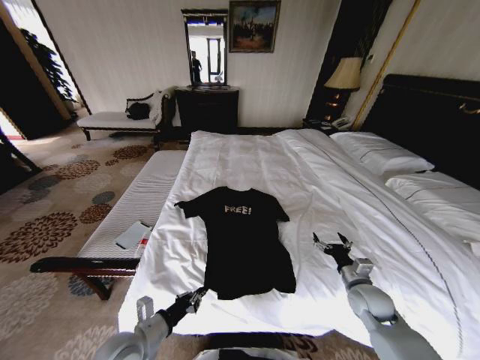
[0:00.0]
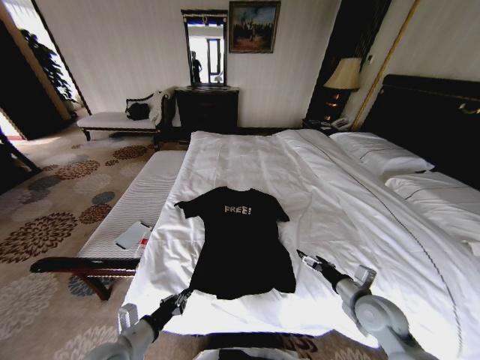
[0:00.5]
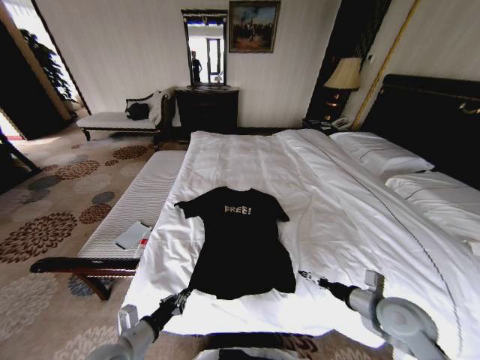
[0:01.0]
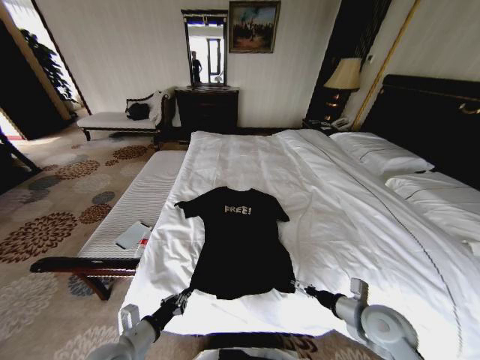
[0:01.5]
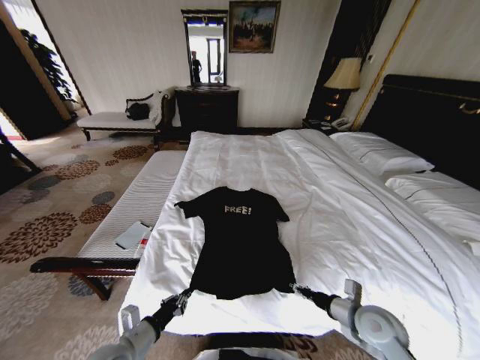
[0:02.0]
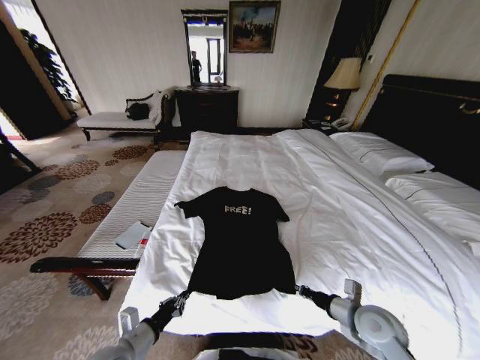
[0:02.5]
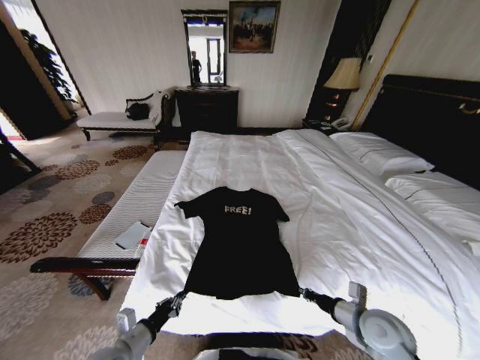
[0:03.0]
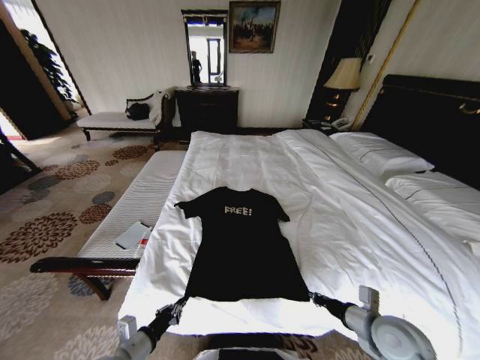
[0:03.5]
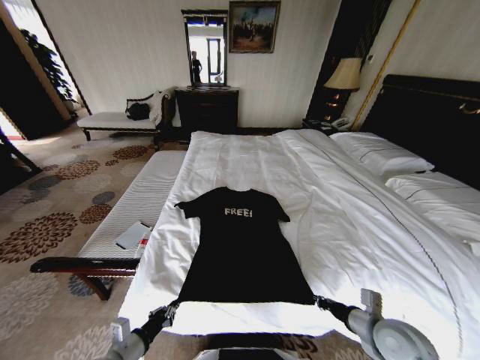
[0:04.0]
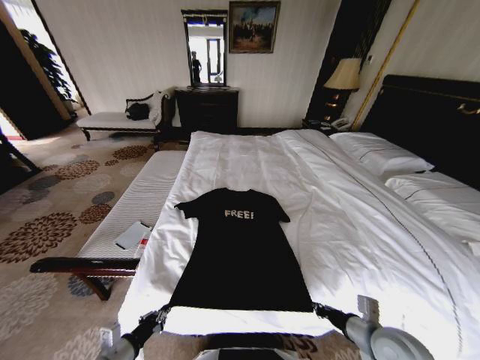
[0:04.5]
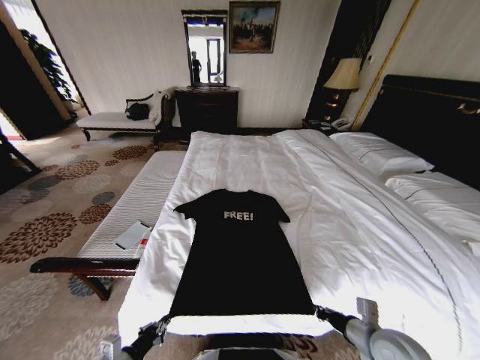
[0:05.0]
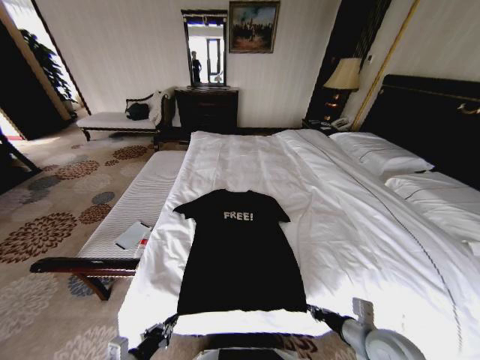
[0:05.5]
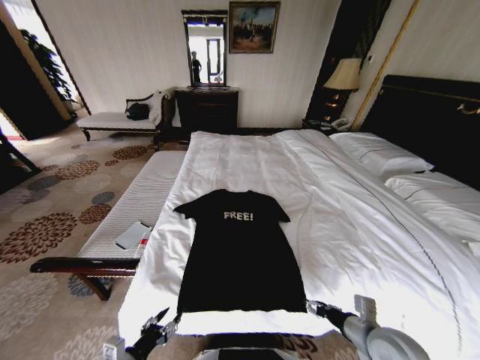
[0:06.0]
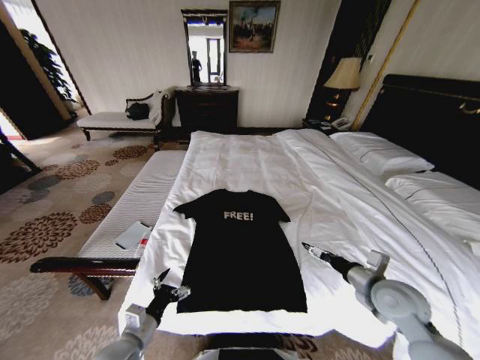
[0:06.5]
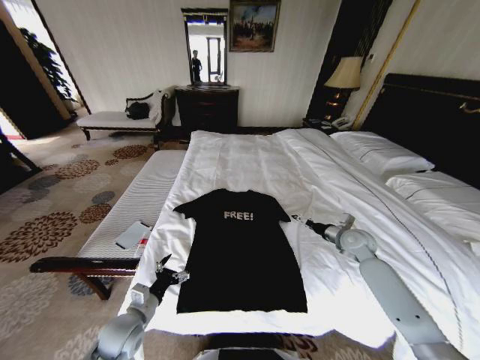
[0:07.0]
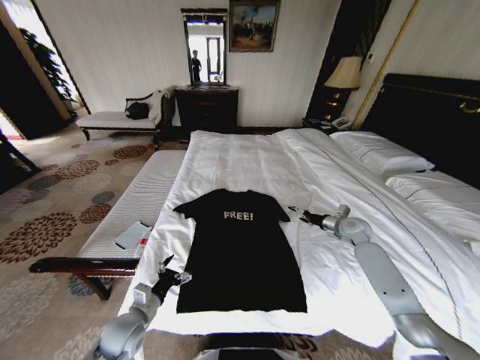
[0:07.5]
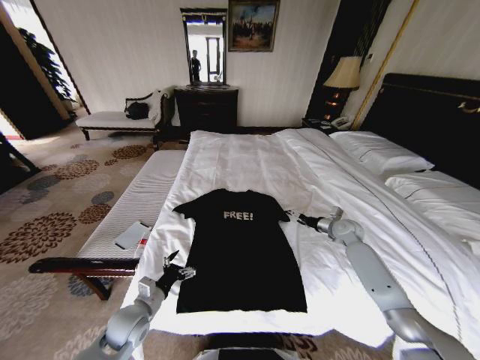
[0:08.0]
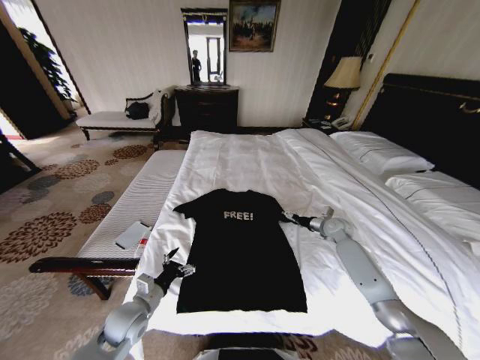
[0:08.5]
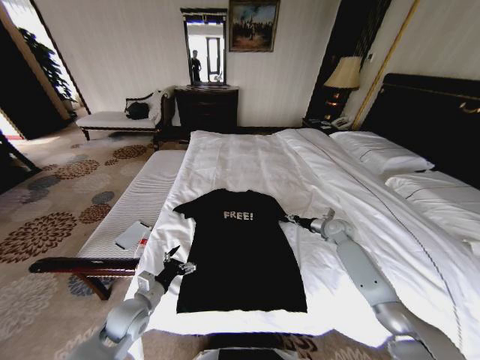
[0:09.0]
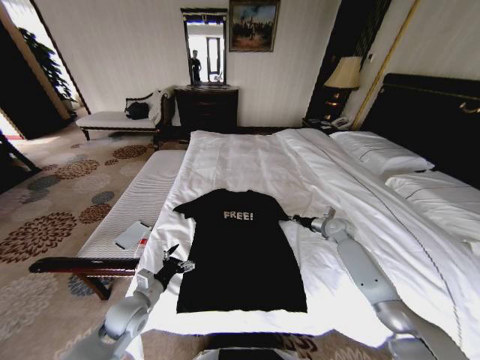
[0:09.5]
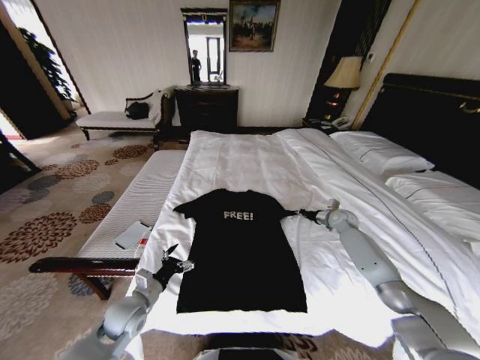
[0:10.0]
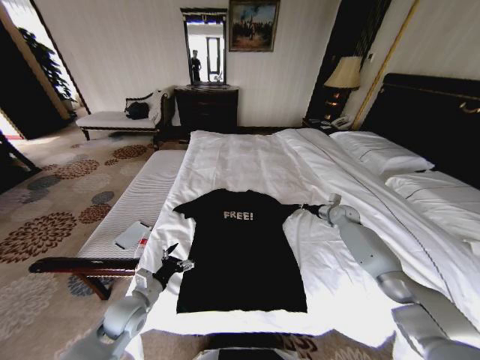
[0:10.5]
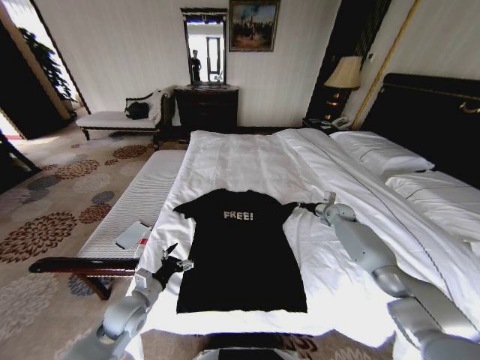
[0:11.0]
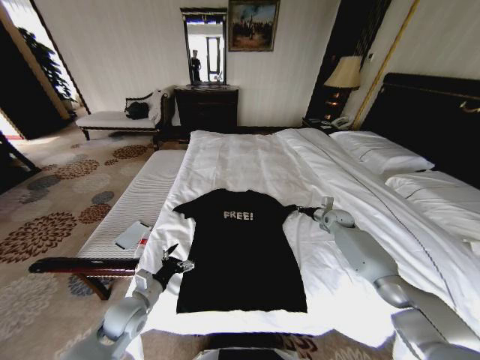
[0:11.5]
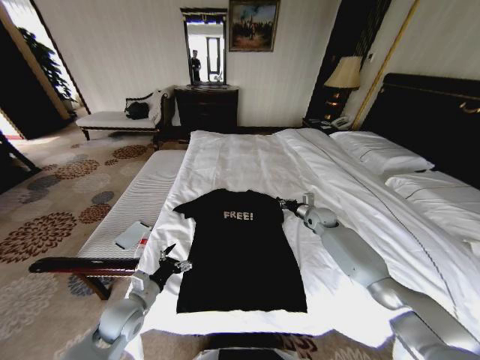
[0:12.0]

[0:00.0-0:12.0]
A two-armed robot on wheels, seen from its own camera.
Task of the whole recording: Fold the clothes on the bed.
0:00.0 to 0:02.0: The right gripper is displaced backward by about 5 cm, and closes up.
0:02.0 to 0:04.0: The right gripper closes.
0:04.0 to 0:06.0: The right gripper opens its fingers. The left gripper opens.
0:06.0 to 0:08.0: The right gripper travels forward by about 30 cm, and opens up, while the left gripper is displaced forward by roughly 15 cm, and opens its fingers.
0:08.0 to 0:10.0: The right gripper shifts some 5 cm forward, and closes.
0:10.0 to 0:12.0: The right gripper travels to the left by approximately 10 cm.

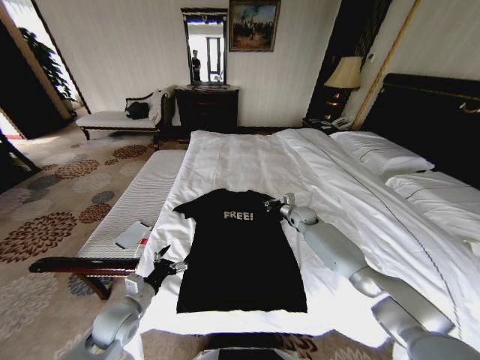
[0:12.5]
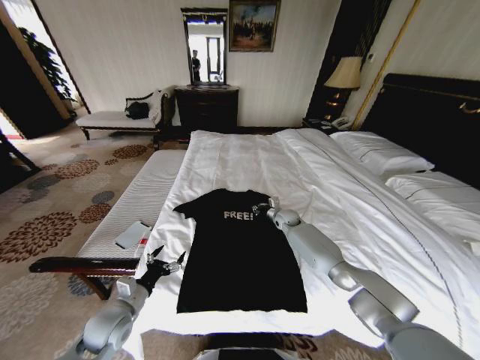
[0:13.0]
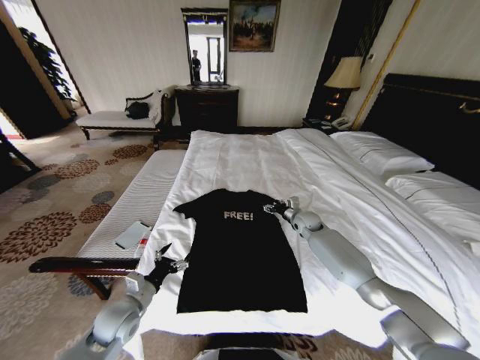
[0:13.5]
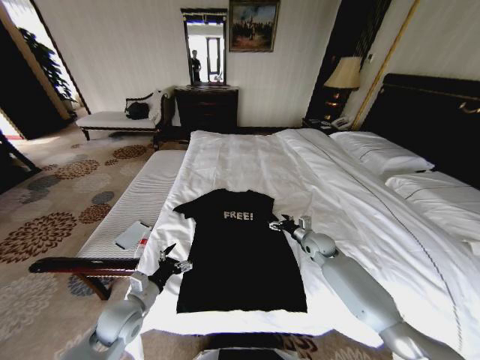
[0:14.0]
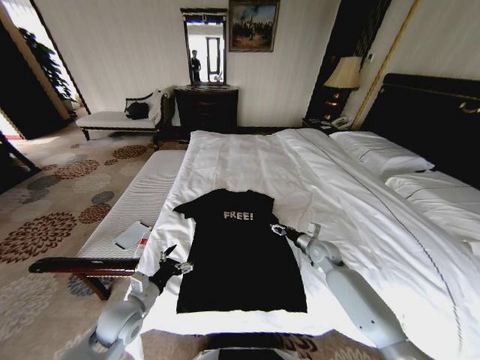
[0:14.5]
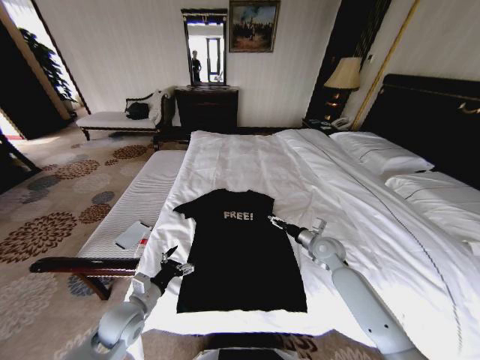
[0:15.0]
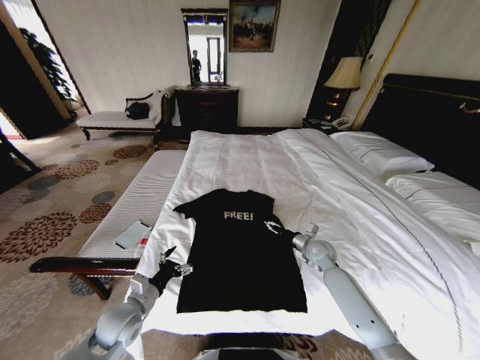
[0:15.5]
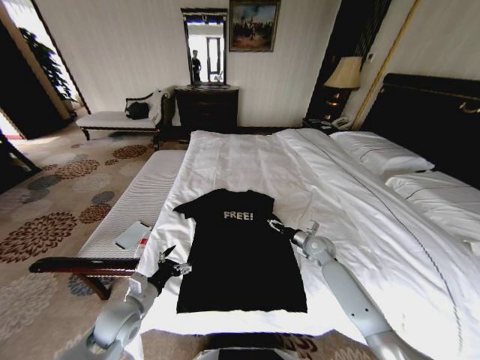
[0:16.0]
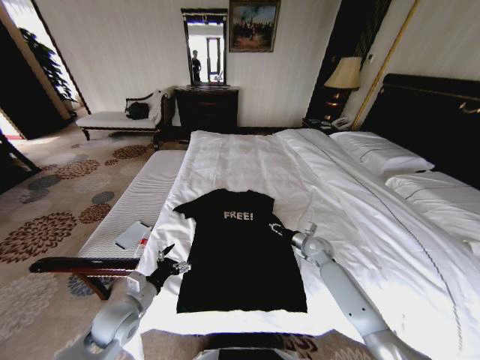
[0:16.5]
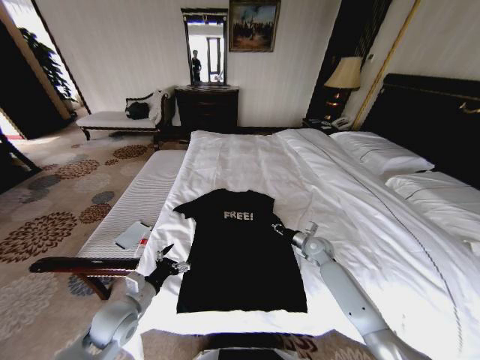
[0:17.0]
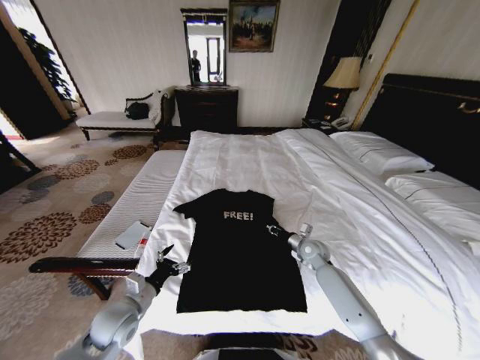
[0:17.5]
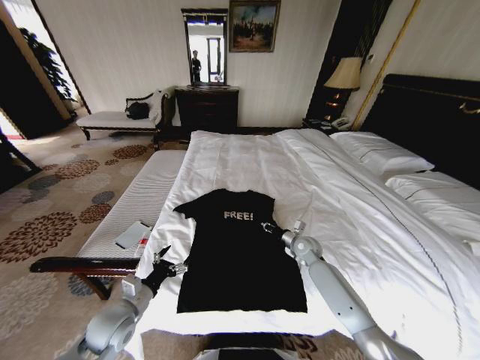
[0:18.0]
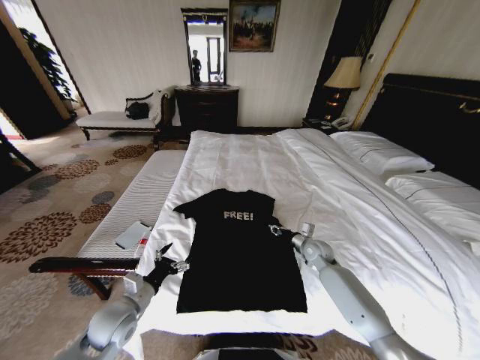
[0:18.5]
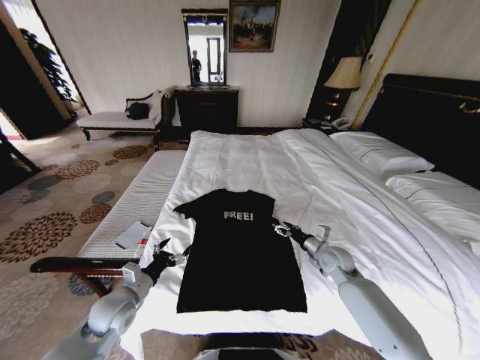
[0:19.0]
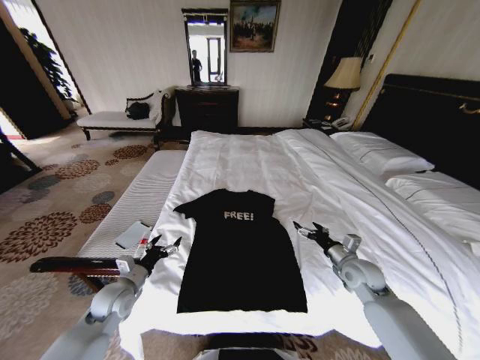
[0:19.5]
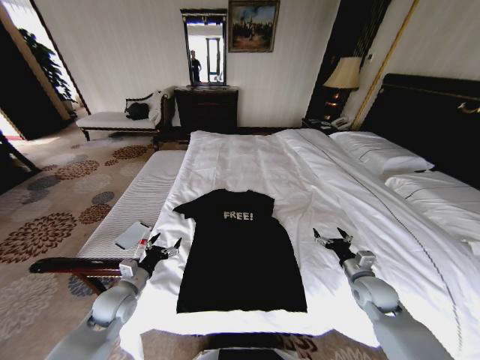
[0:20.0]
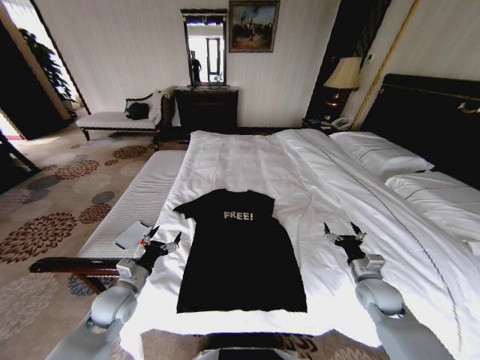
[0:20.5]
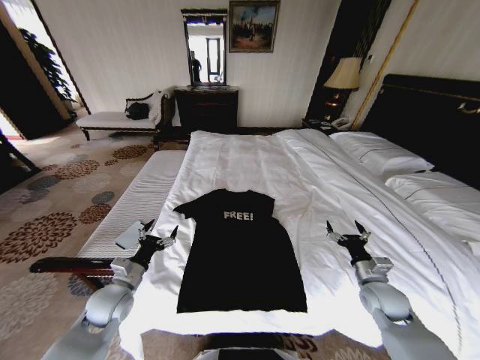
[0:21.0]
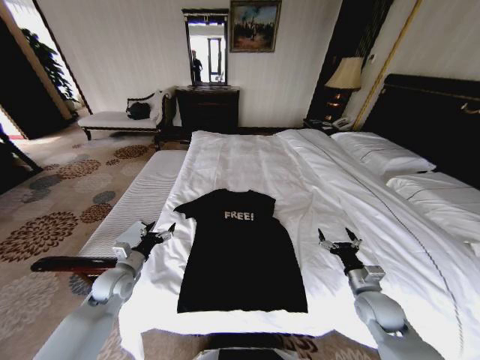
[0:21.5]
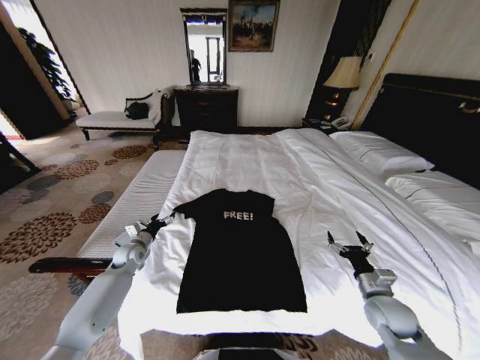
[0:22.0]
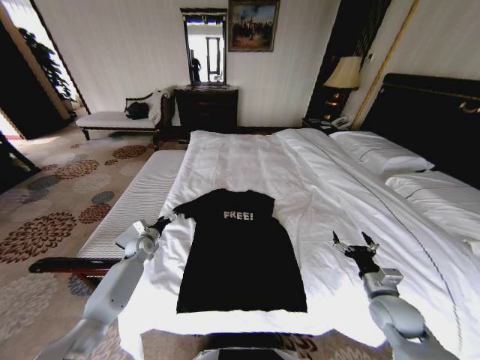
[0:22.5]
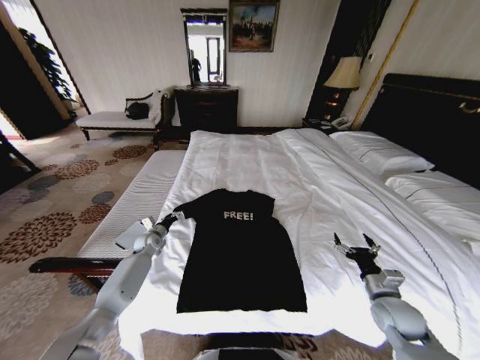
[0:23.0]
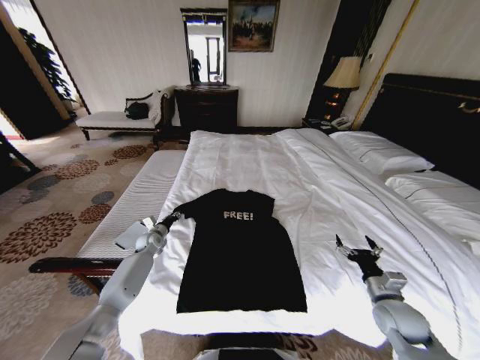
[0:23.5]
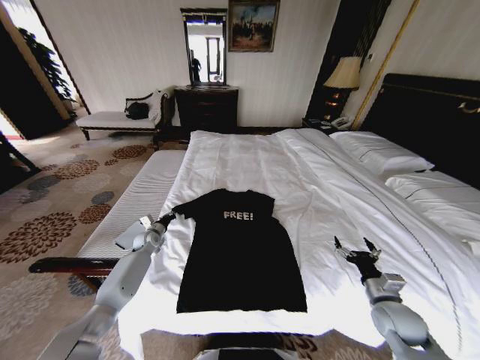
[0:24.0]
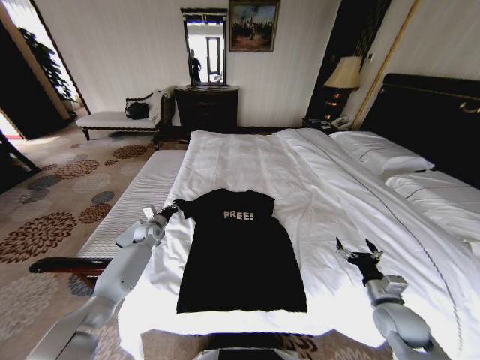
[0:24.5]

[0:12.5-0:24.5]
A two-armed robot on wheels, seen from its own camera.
Task of the whole recording: Fold the clothes on the bed.
0:12.5 to 0:14.5: The right gripper travels backward by roughly 15 cm, and opens.
0:14.5 to 0:16.5: The right gripper closes up.
0:16.5 to 0:18.5: There are only small adjustments of the grippers.
0:18.5 to 0:20.5: The left gripper changes place by some 5 cm; the right gripper heads backward and to the right, covering approximately 20 cm, and opens its fingers.
0:20.5 to 0:22.5: The right gripper shifts by some 5 cm. The left gripper shifts roughly 20 cm forward.
0:22.5 to 0:24.5: The left gripper ends up approximately 5 cm from where it was, and closes.

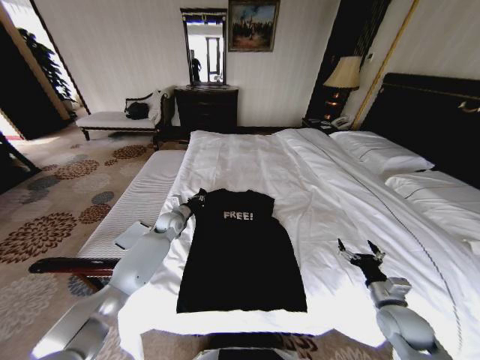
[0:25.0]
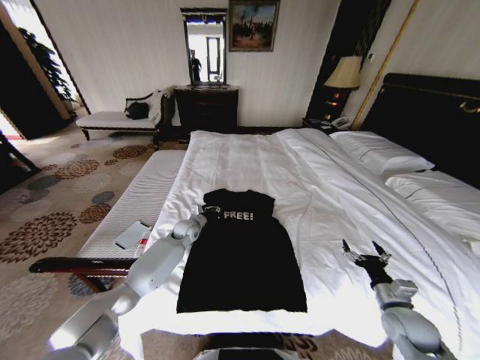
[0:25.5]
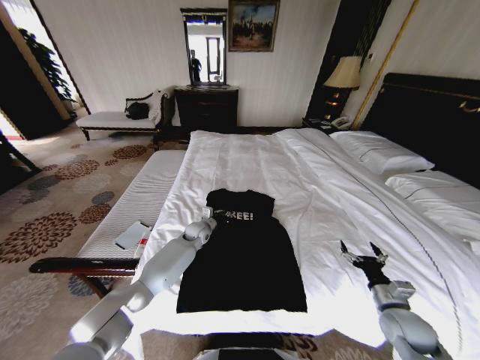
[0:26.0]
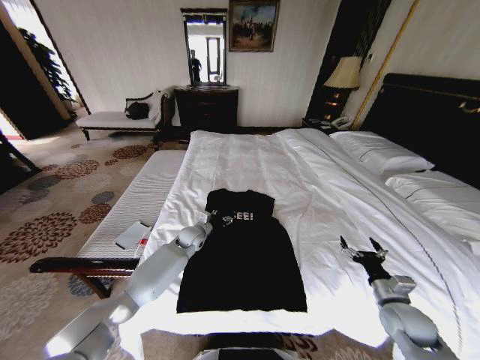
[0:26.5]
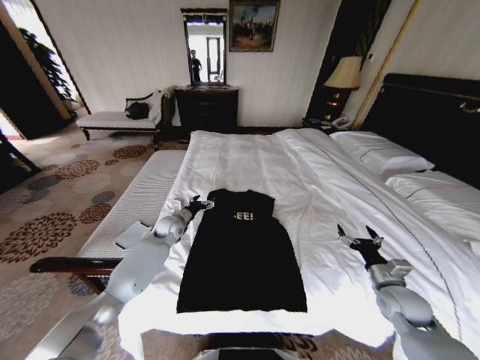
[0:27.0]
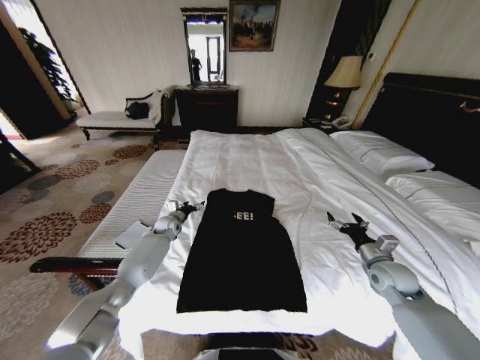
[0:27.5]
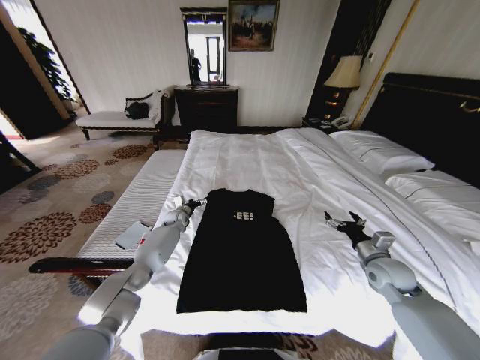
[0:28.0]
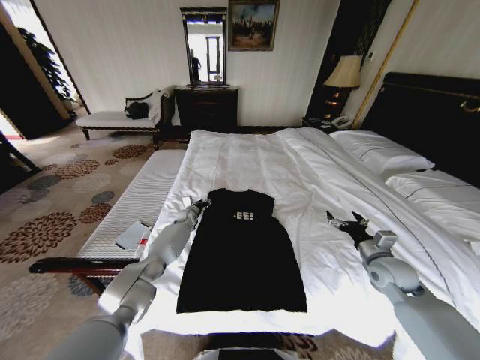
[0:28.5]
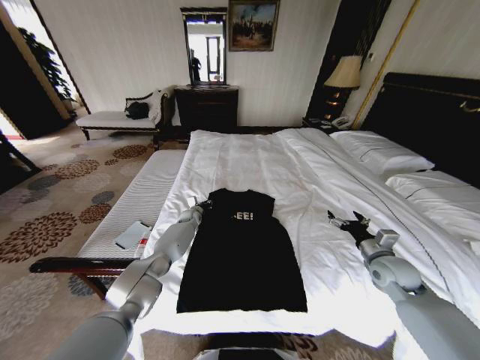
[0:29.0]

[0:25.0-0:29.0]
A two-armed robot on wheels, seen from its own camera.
Task of the whole recording: Fold the clothes on the bed.
0:25.0 to 0:27.0: The left gripper reaches some 10 cm to the right, then returns, and opens up.
0:27.0 to 0:29.0: The left gripper is displaced forward and downward by some 15 cm, and closes up, while the right gripper travels forward and upward by roughly 10 cm.
